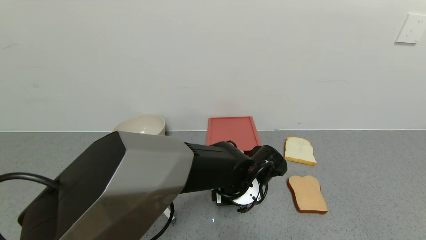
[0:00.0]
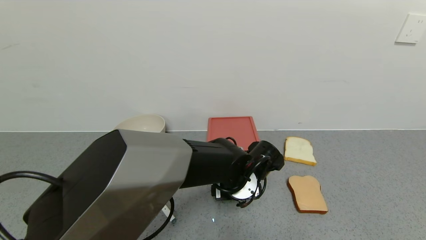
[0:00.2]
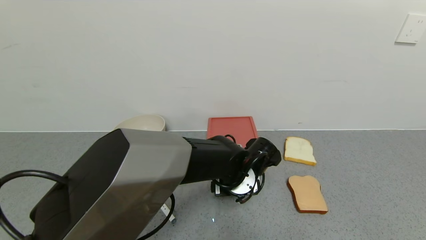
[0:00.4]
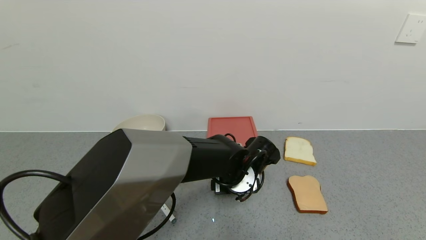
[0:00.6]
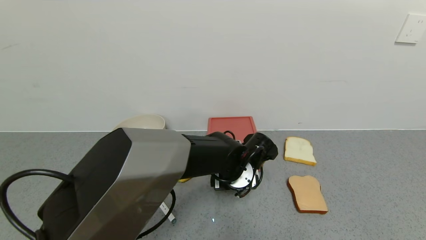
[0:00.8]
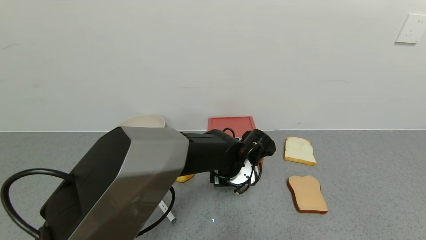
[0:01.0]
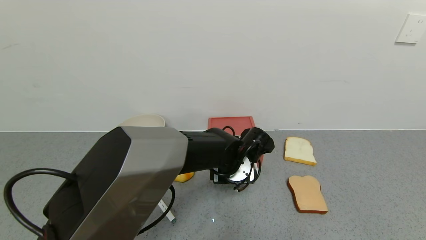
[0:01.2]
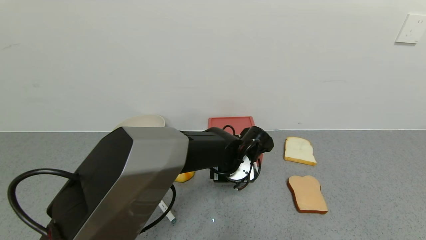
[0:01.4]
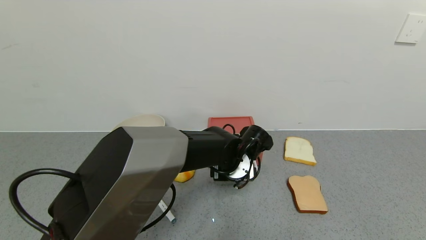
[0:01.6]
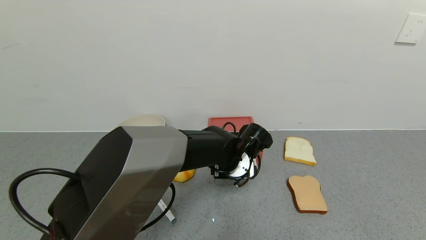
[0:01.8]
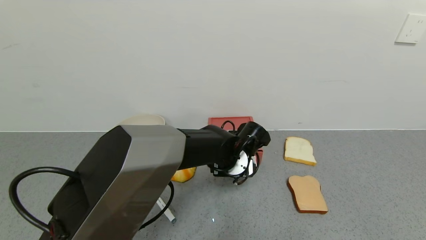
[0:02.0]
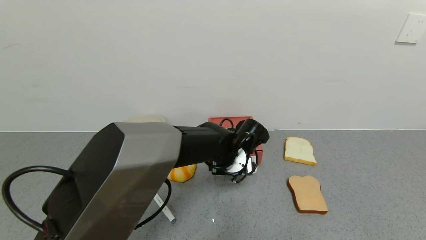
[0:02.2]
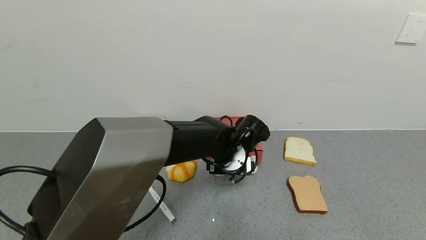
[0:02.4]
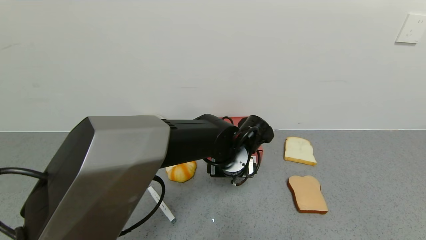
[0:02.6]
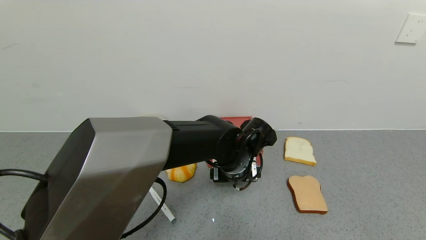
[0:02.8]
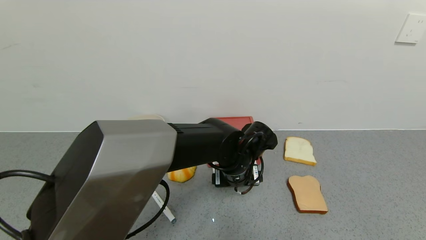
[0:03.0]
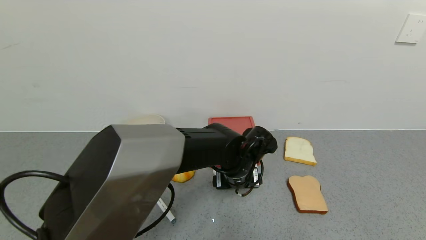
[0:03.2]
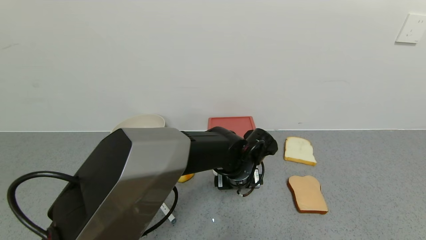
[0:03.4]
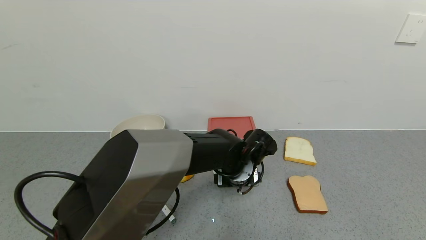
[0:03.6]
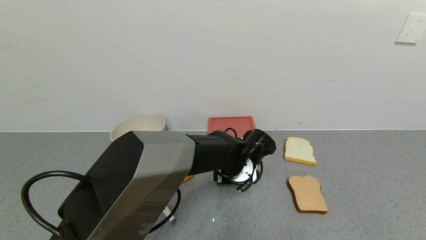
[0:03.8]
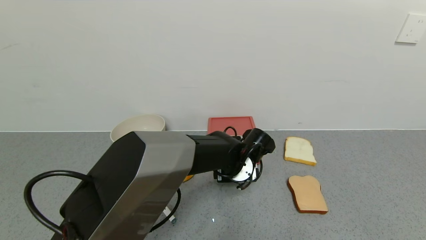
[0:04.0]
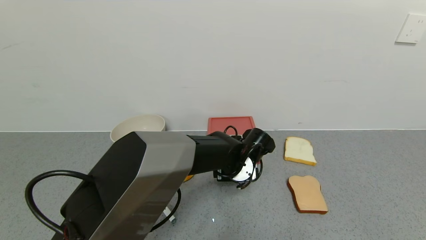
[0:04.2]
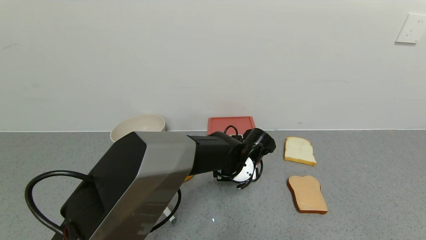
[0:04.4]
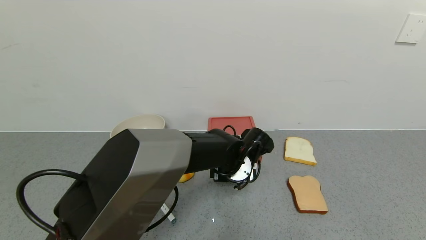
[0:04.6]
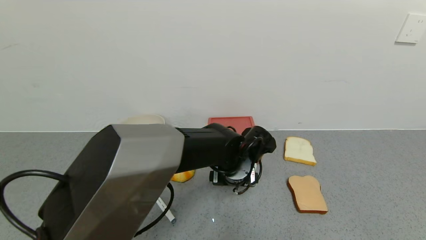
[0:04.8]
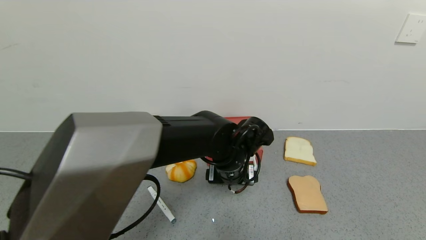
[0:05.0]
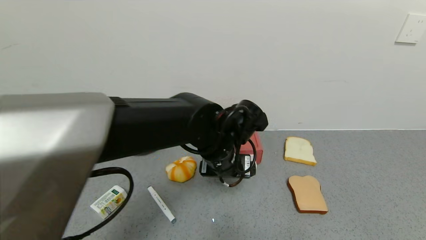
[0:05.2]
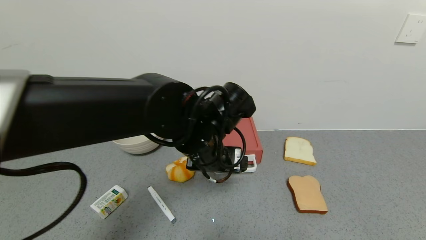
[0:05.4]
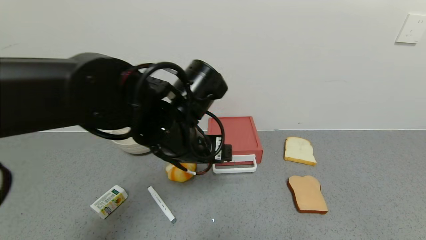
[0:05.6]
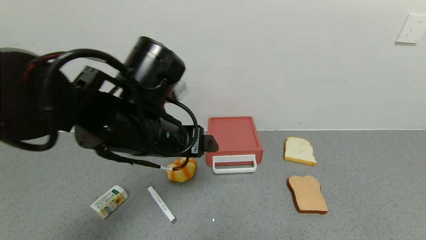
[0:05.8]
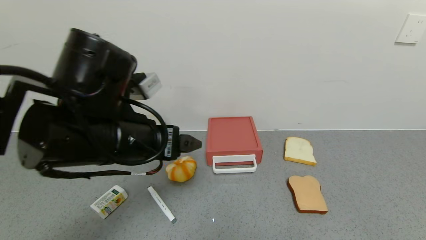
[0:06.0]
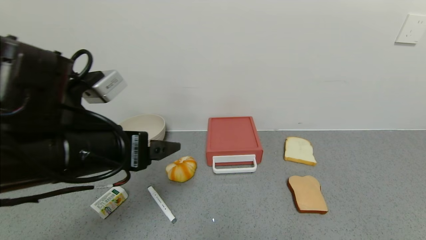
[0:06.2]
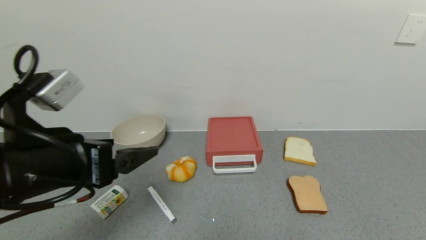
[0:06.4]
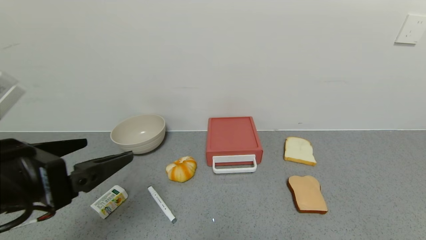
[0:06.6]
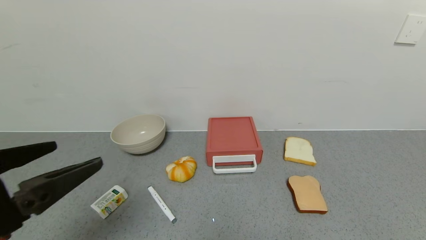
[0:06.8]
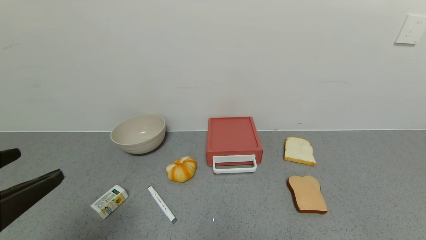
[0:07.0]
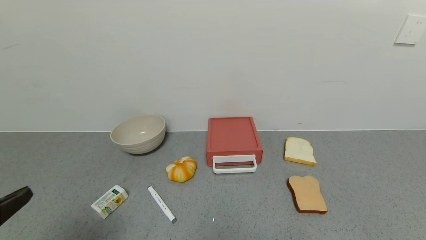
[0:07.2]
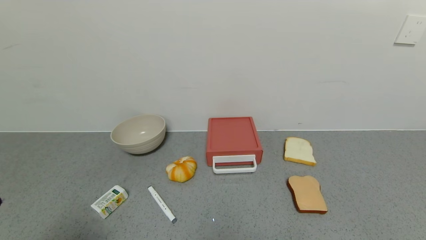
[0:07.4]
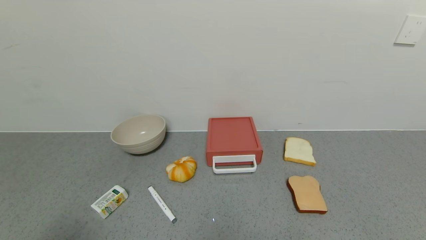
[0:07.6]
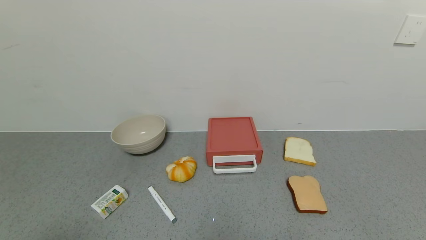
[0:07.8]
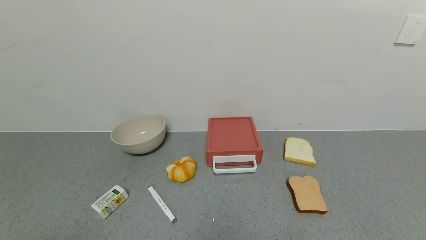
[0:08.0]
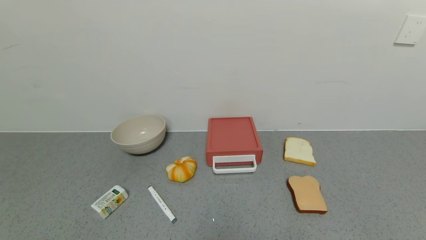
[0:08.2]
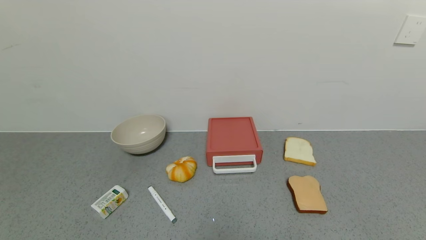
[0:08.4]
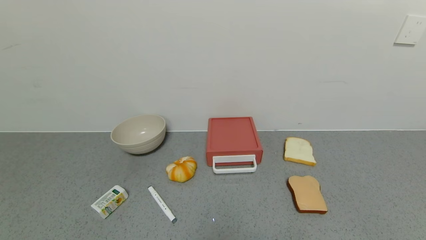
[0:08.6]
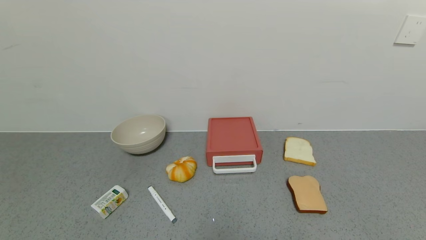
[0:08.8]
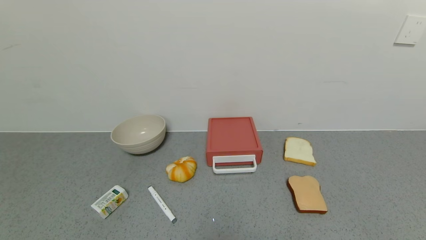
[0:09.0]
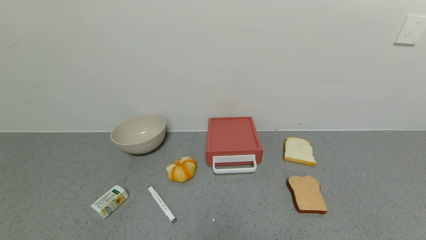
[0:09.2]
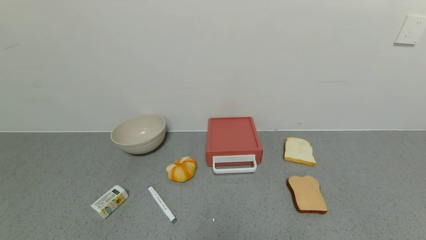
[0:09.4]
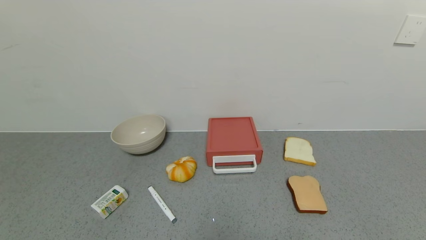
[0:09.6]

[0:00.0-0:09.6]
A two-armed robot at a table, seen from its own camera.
Task of the whole recording: use the gripper to open the drawer and close the red drawer.
Step, 0:00.0 to 0:02.6: Close the red drawer with the left gripper.
0:00.0 to 0:01.6: The left gripper heads forward, covering approximately 5 cm.
0:01.6 to 0:04.8: The grippers move only a little.
0:04.8 to 0:06.4: The left gripper moves to the left, backward and upward, approximately 30 cm.
0:06.4 to 0:08.0: The left gripper heads backward and to the left, covering approximately 20 cm.

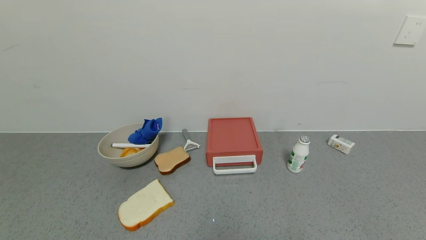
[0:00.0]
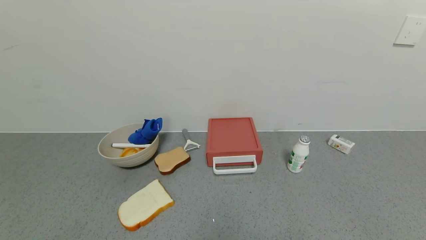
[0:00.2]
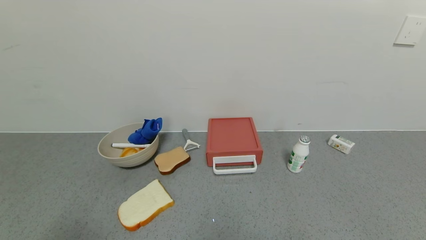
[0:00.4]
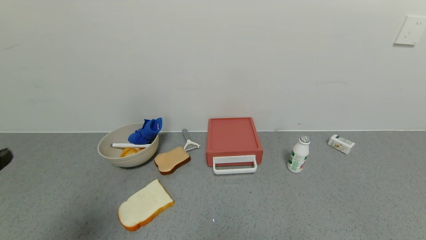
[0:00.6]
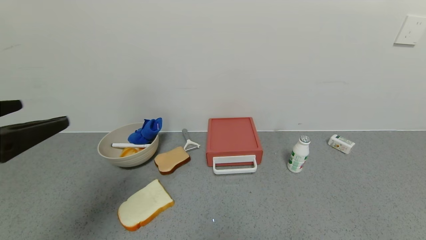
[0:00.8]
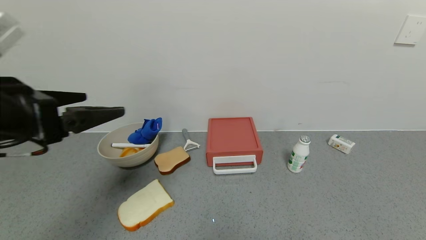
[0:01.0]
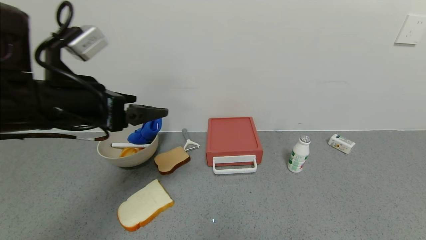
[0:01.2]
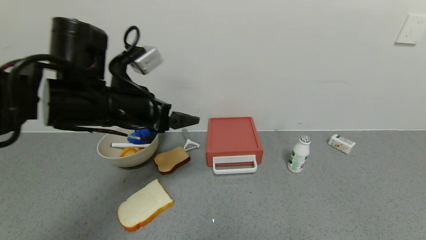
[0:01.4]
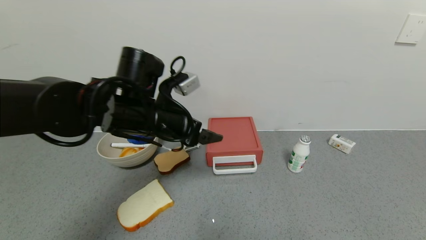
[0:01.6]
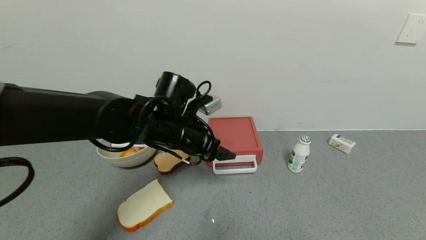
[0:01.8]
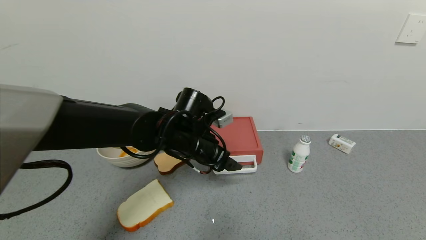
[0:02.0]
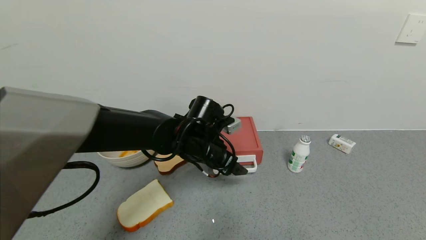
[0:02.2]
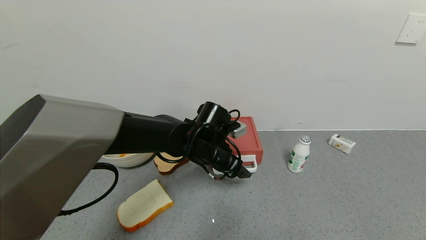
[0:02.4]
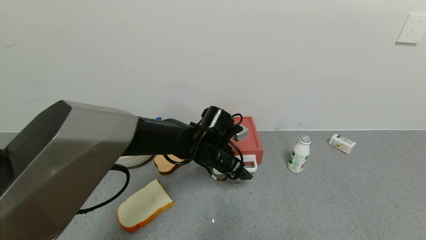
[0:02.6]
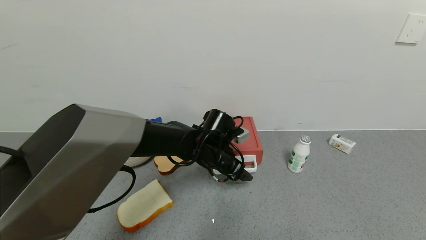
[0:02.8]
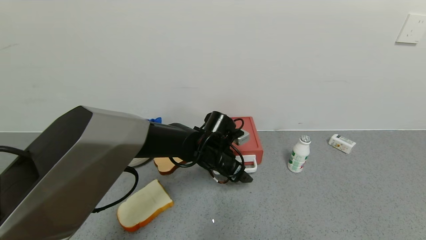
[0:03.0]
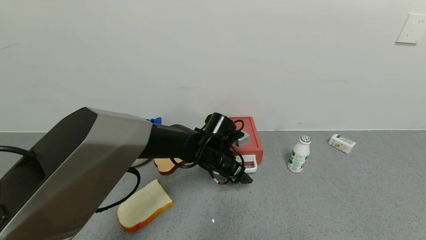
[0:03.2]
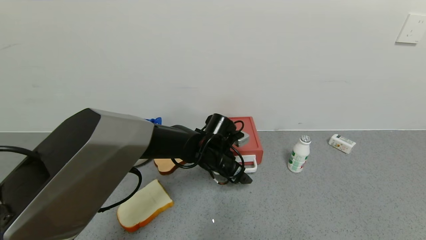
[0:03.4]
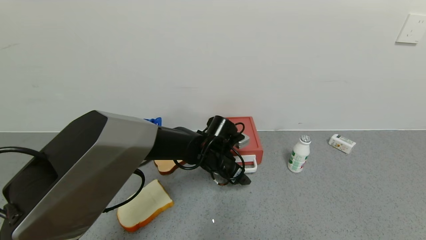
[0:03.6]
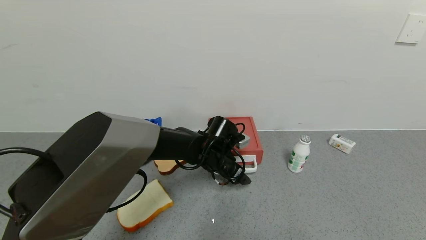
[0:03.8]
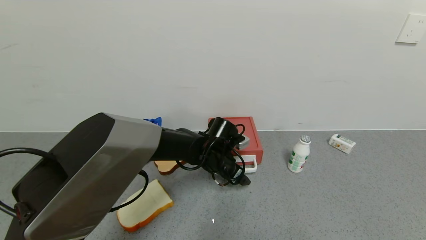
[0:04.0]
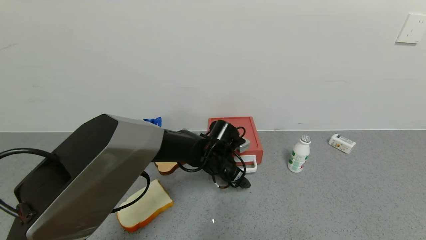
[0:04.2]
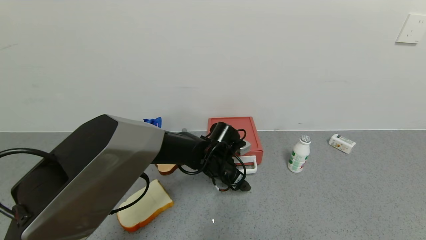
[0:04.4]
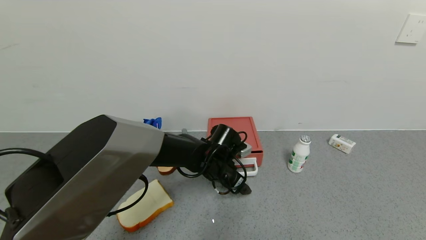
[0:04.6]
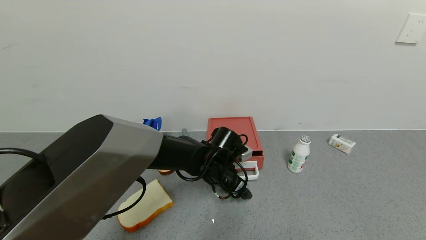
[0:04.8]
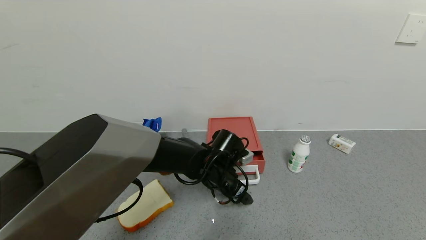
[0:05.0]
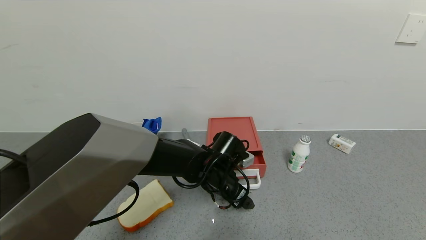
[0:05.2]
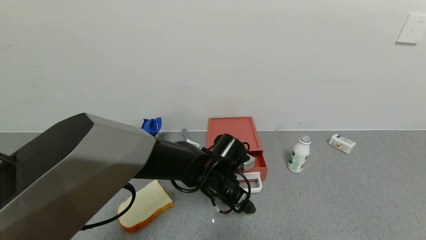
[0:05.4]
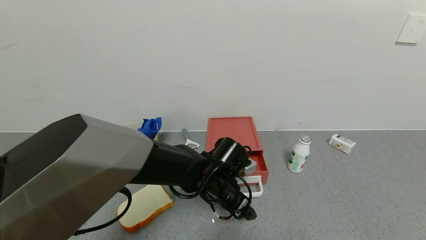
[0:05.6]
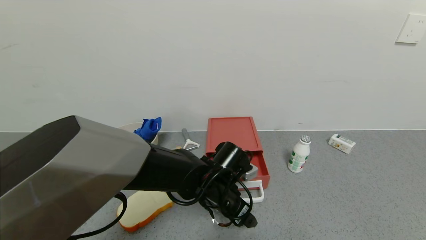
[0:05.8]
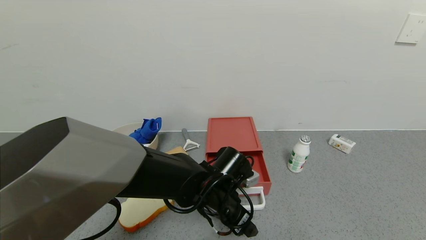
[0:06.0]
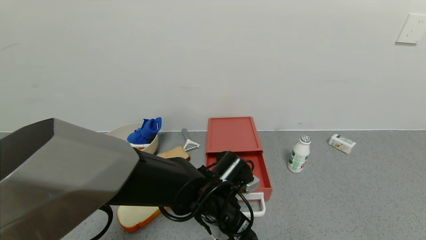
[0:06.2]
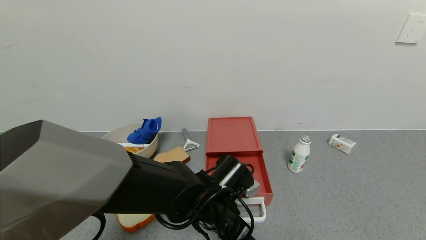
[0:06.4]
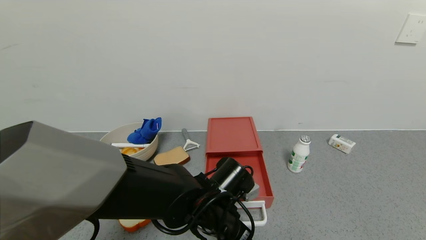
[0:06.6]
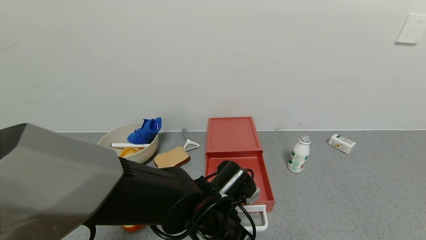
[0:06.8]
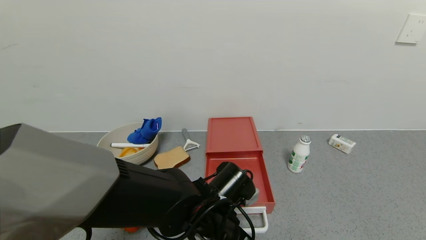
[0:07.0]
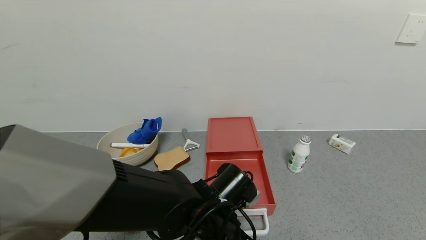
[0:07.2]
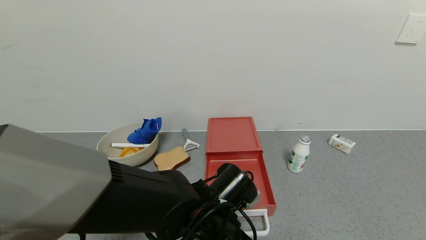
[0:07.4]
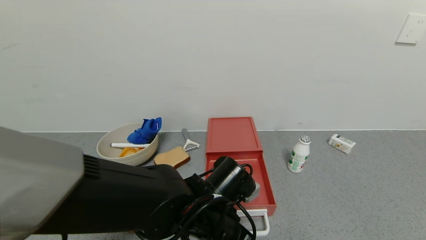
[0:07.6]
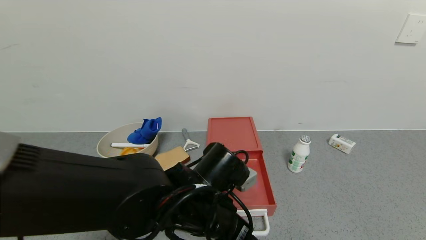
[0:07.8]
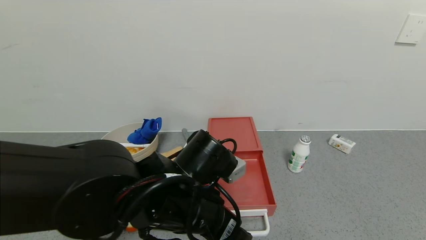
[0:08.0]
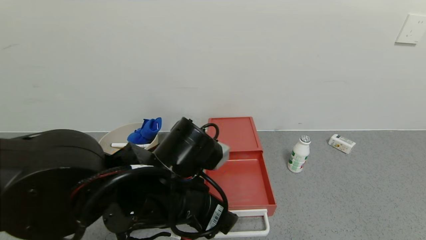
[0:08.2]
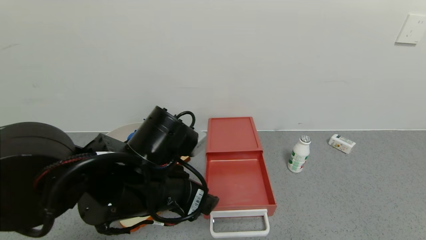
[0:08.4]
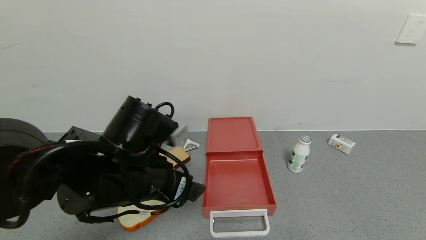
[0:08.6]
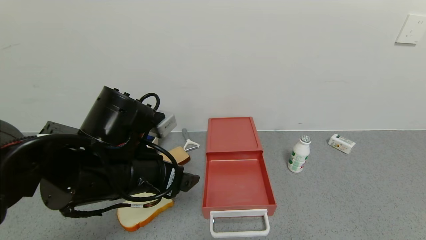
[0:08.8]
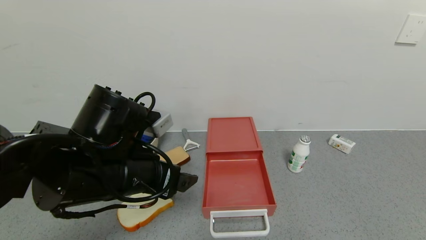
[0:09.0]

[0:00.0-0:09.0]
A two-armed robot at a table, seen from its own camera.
Task of the whole recording: use the gripper to open the drawer and close the red drawer.
Step, 0:00.0 to 0:07.8: Open the red drawer with the left gripper.
0:00.0 to 0:01.6: The left gripper moves forward and to the right, about 40 cm.
0:01.6 to 0:03.0: The left gripper moves downward, to the right and forward, approximately 15 cm.
0:03.0 to 0:04.4: The grippers move only a little.
0:04.4 to 0:06.0: The left gripper moves backward, some 10 cm.
0:06.0 to 0:07.6: The left gripper travels backward by about 5 cm.
0:07.6 to 0:09.0: The left gripper heads to the left and upward, covering approximately 15 cm.
